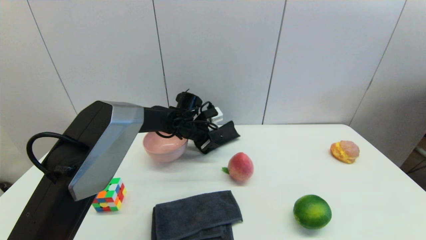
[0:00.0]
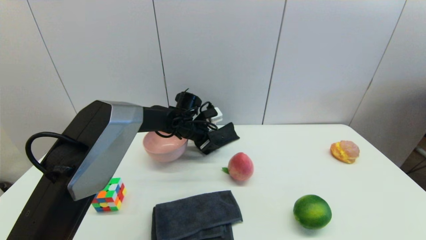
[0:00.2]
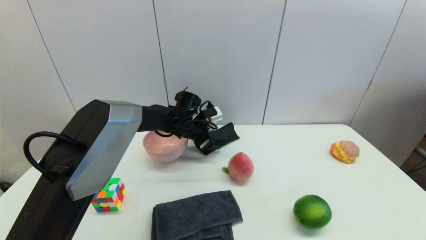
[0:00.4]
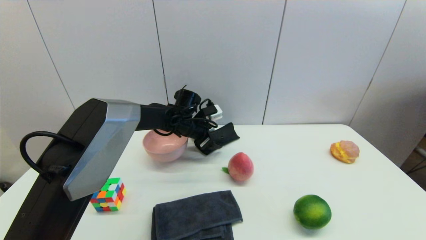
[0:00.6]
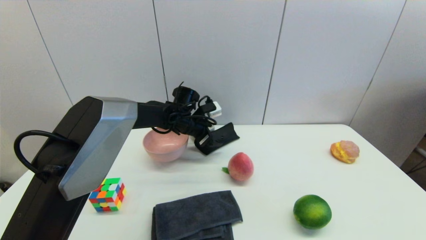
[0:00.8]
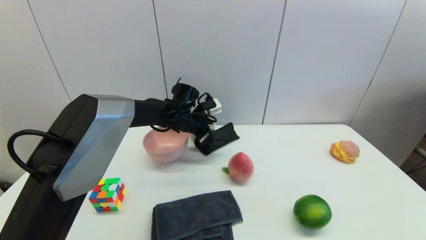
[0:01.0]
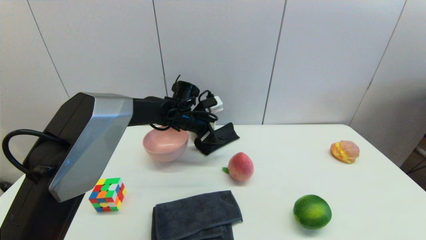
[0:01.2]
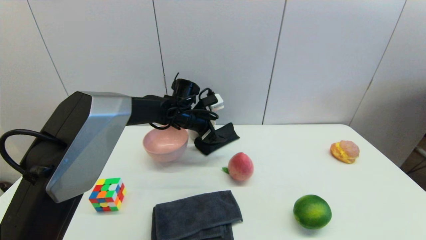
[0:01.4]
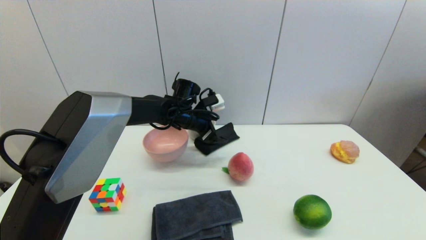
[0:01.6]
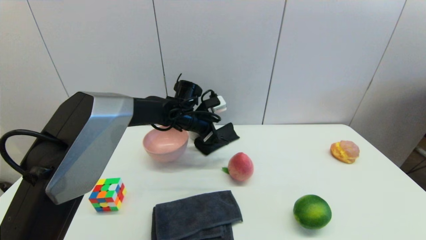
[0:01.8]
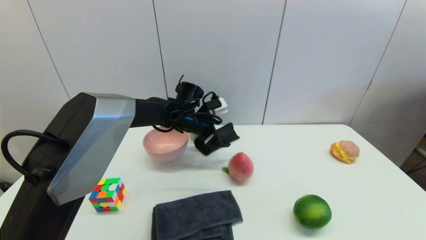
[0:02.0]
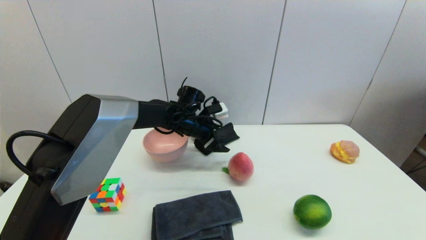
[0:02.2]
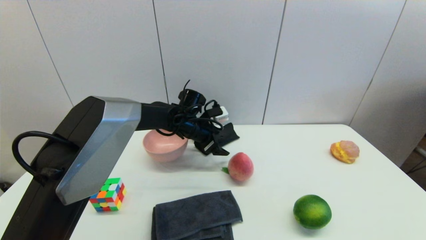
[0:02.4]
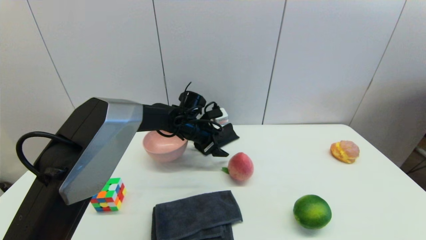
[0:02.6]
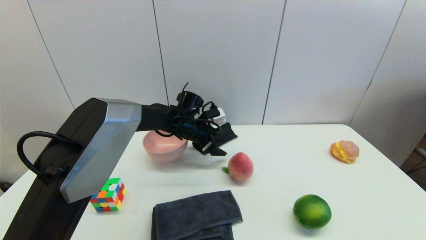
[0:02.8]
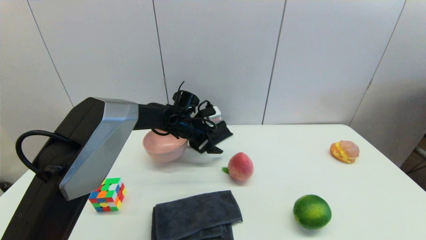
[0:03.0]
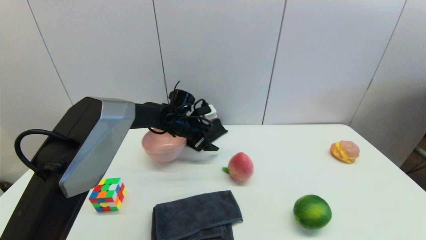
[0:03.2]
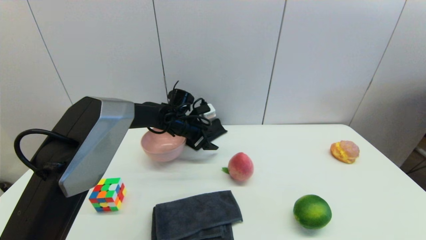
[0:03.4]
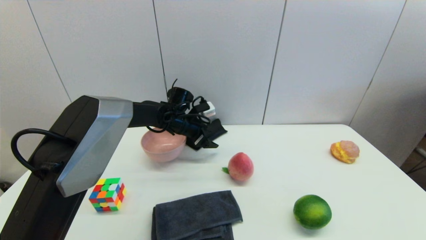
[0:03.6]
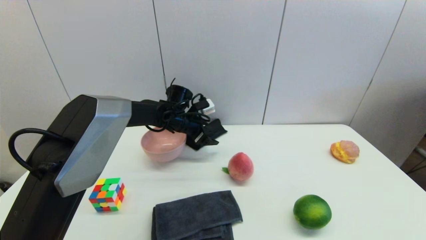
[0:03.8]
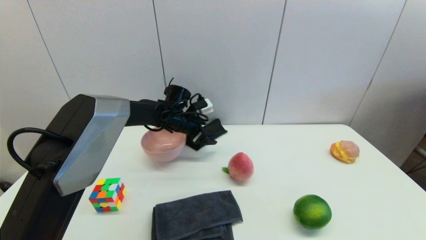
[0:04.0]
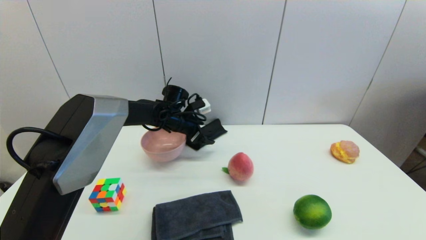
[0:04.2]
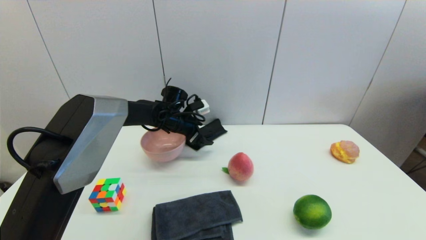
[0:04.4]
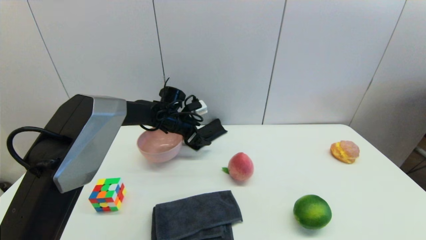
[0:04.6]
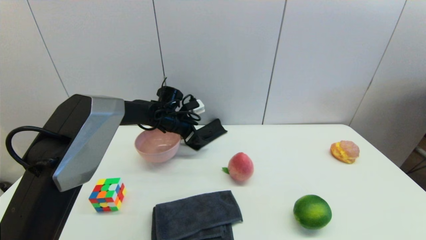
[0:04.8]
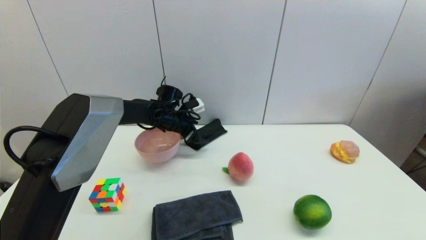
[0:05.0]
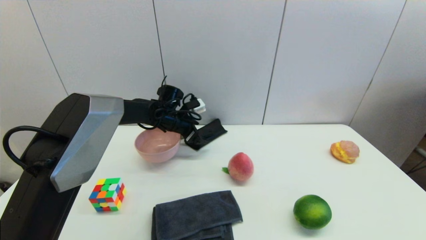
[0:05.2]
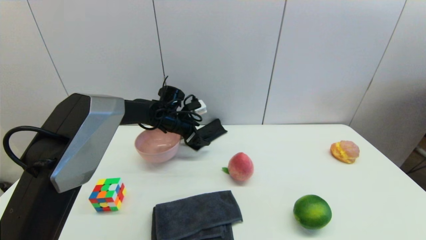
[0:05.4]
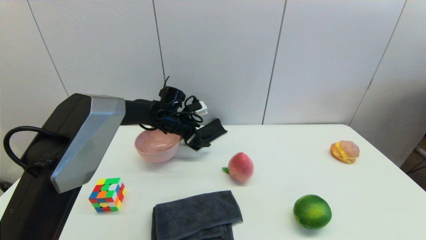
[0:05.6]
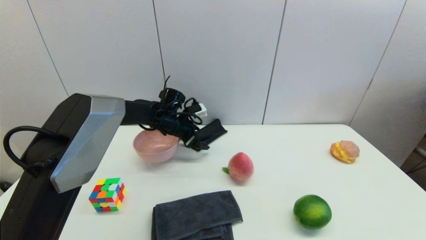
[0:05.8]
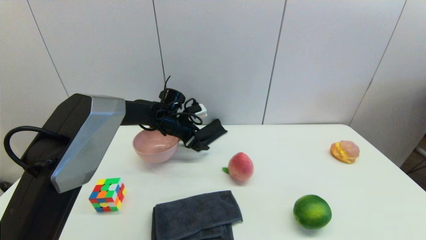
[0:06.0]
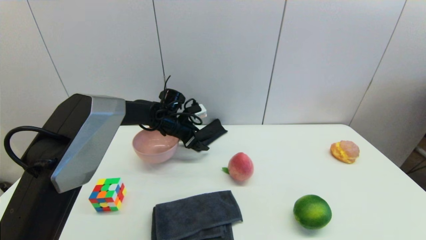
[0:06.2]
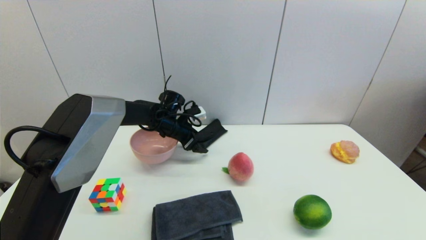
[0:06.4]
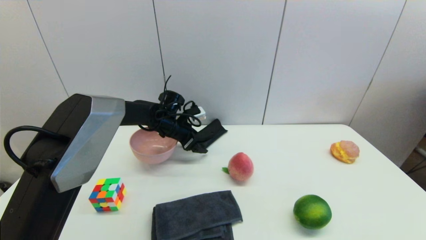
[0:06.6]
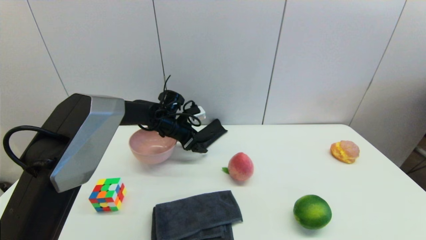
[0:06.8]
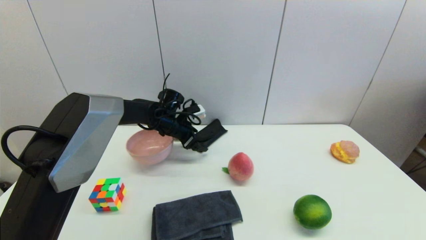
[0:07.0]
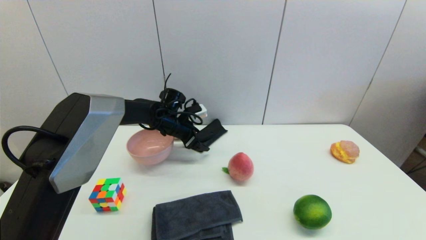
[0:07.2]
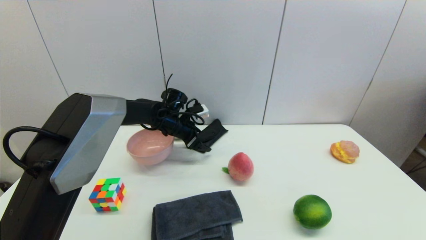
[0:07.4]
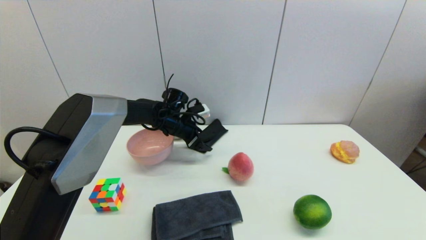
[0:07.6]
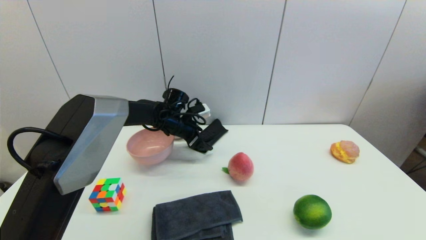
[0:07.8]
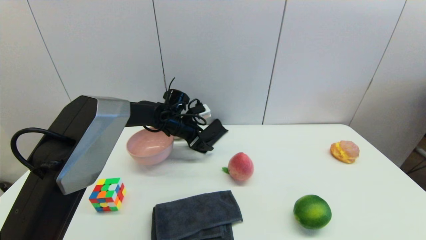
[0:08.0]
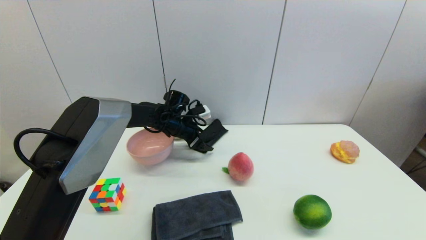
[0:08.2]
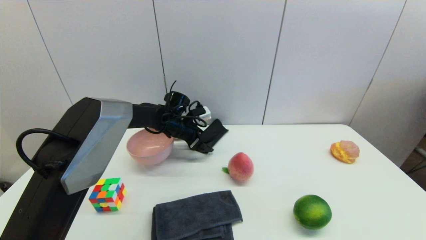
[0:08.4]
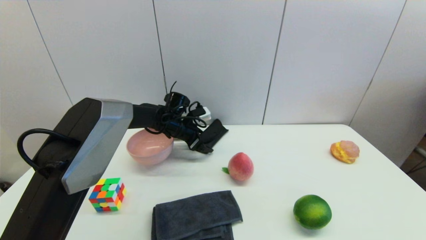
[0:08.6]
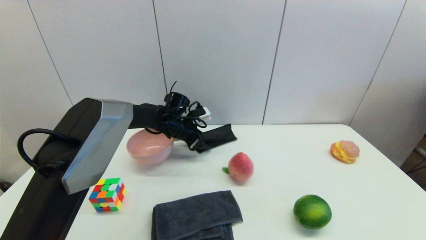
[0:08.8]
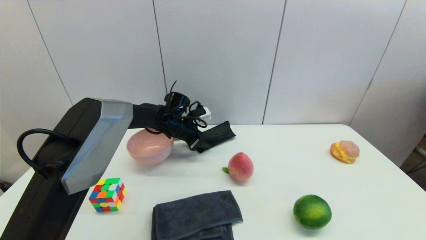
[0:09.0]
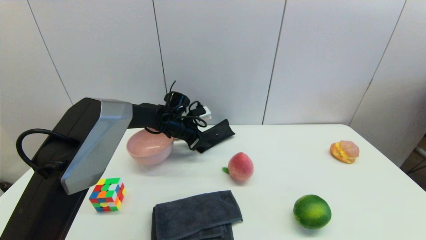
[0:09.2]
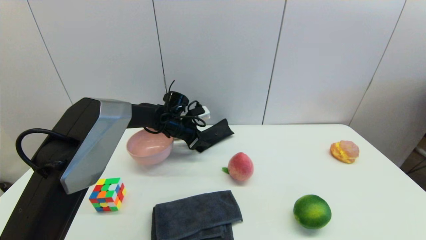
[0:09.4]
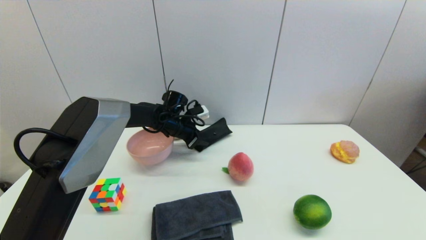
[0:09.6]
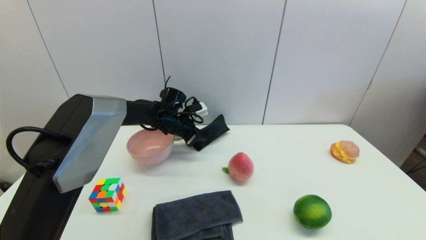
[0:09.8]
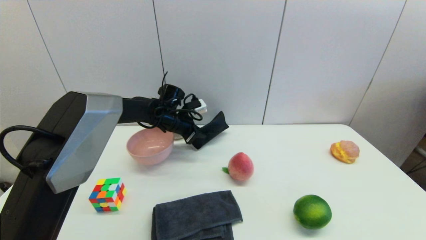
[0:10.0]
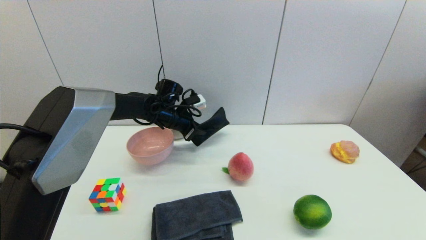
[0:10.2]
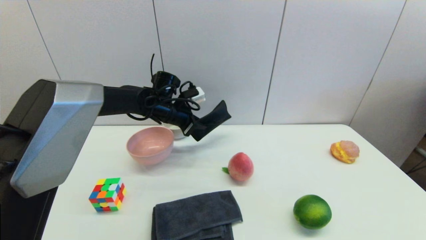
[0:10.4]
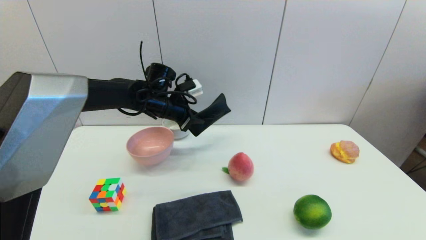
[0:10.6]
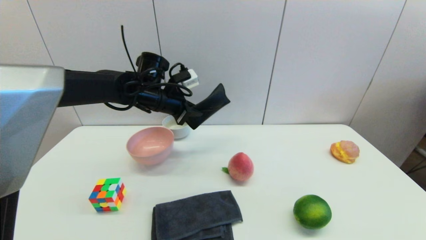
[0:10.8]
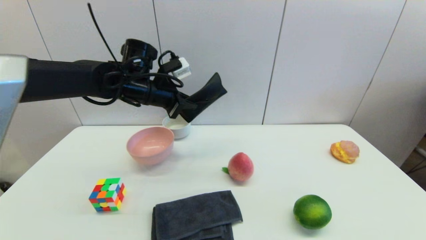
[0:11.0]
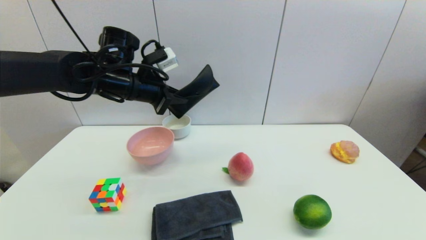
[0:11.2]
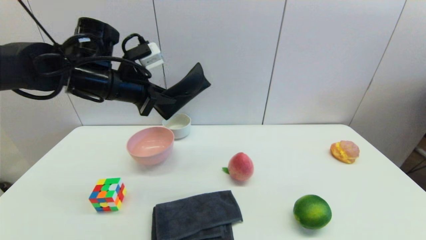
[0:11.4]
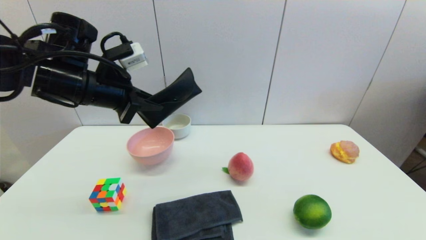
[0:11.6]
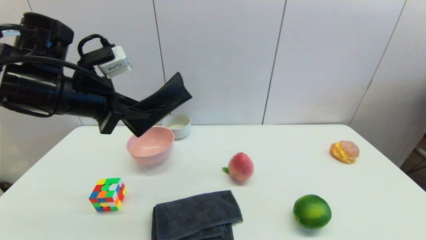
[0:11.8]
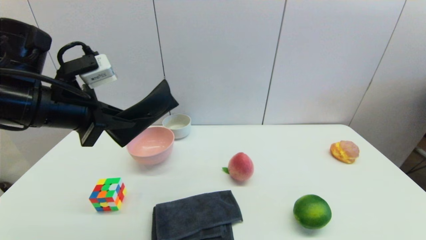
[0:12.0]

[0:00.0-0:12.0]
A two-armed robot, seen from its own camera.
Step, 0.0 to 9.4 s: Grasp the glasses case with left gripper.
0.0 to 1.6 s: The left gripper opens.
1.6 to 4.4 s: There are only small adjustments of the grippers.
4.4 to 6.0 s: Neither gripper changes place.
6.0 to 7.6 s: The two grippers keep their place.
7.6 to 9.0 s: The left gripper closes.
9.0 to 10.4 s: The left gripper shifts about 5 cm upward, and closes its fingers.
10.4 to 12.0 s: The left gripper heads backward, to the left and upward, covering roughly 25 cm.

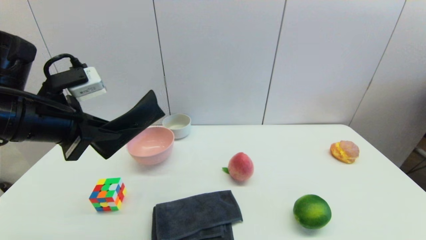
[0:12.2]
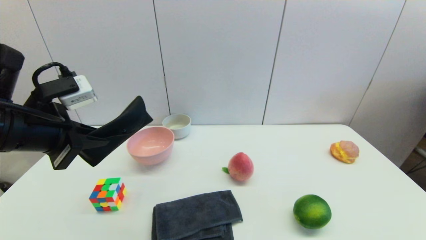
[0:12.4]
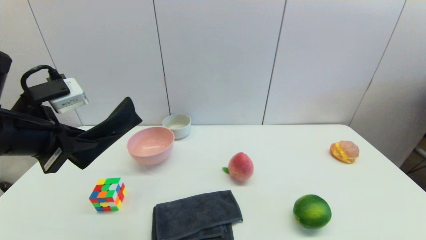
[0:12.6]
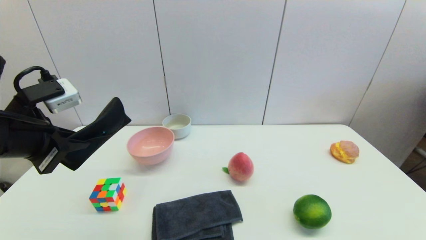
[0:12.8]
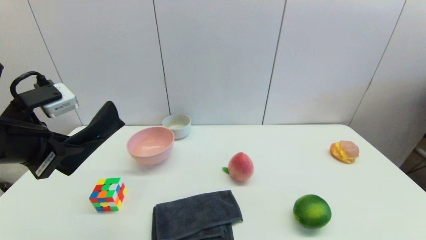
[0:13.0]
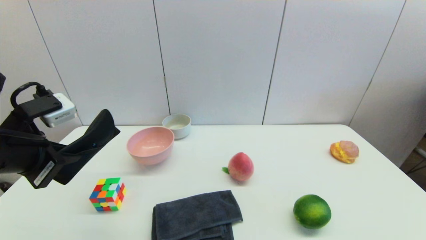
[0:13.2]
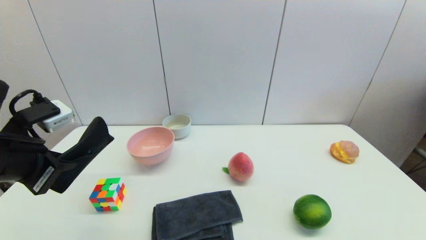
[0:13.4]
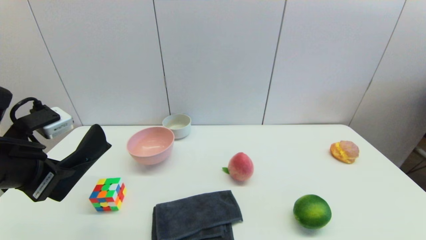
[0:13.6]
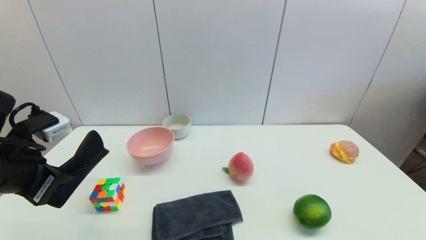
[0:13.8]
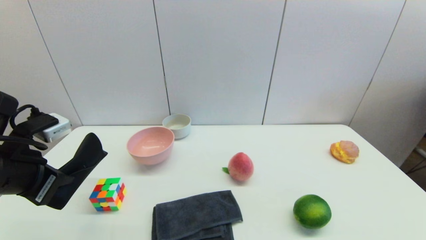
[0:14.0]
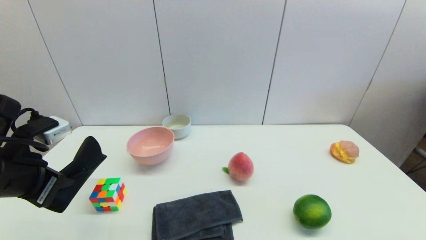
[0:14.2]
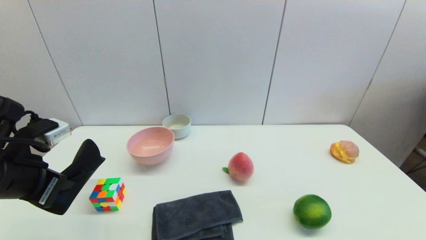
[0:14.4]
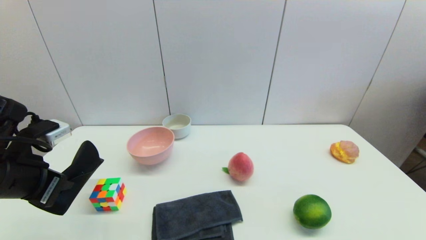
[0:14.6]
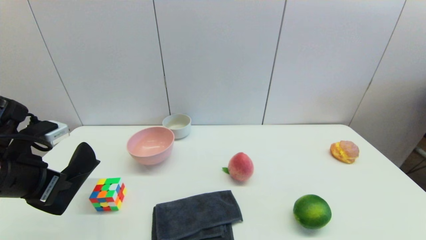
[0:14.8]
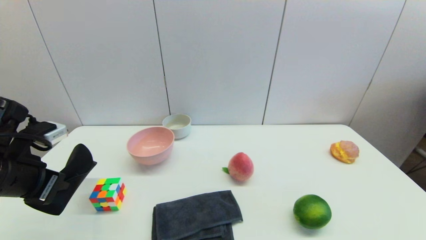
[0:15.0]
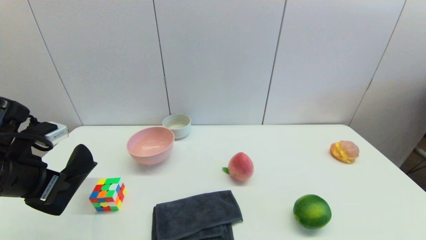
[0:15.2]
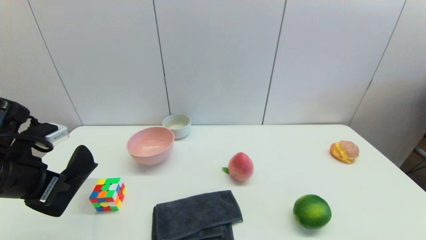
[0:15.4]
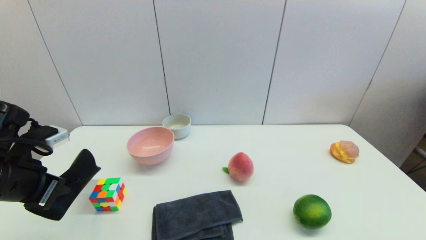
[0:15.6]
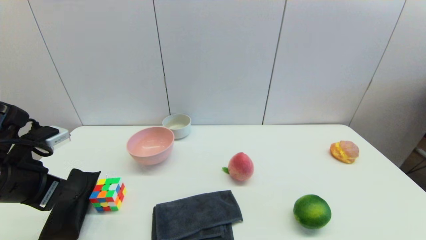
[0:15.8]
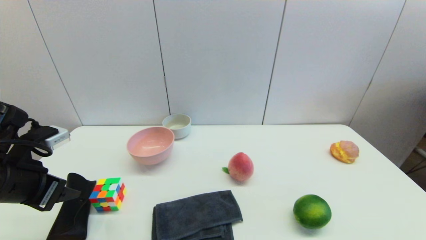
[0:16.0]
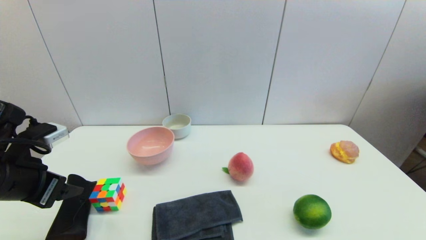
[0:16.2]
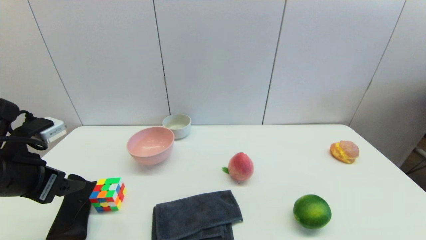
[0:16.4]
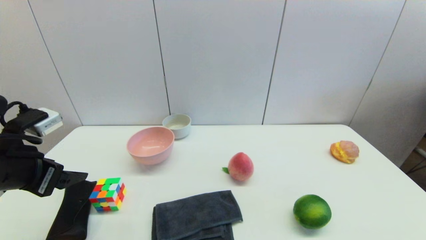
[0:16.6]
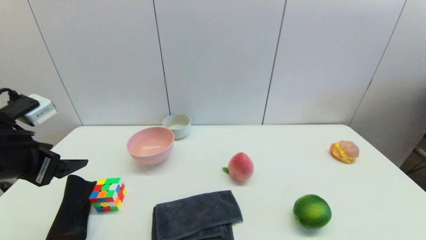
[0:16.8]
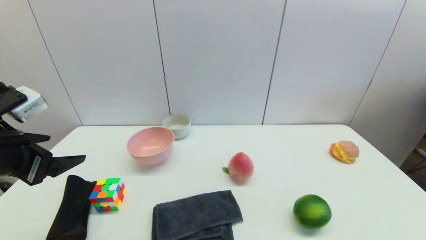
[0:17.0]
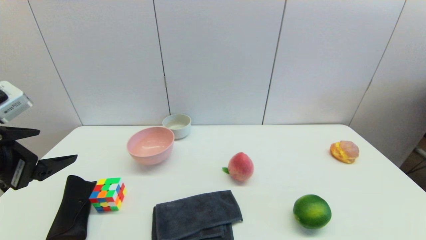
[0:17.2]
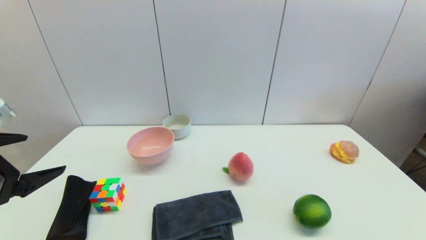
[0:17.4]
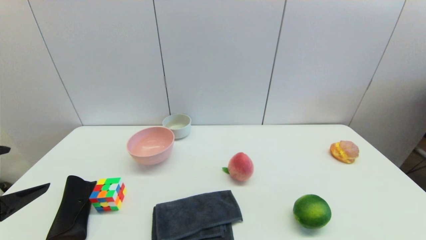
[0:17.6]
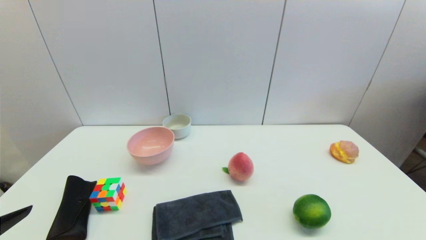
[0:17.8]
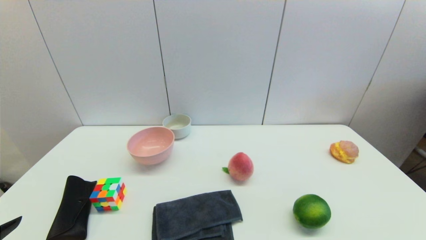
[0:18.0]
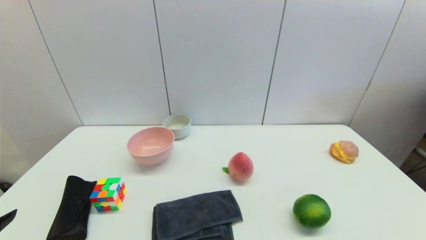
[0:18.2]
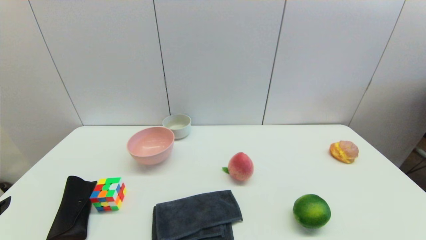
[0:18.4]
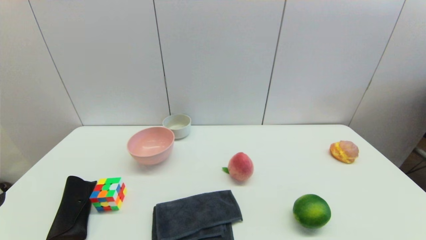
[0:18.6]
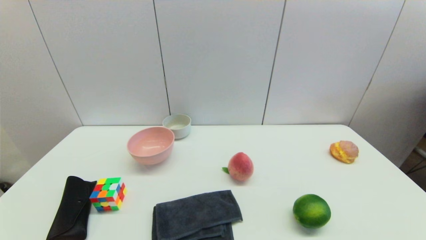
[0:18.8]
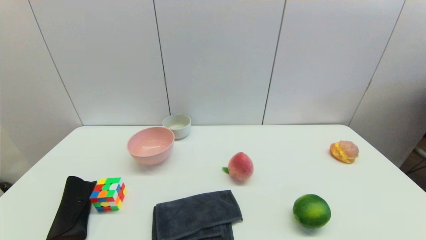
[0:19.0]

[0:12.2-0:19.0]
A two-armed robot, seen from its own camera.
Step, 12.2 to 16.0 s: Place the glasses case on the table with left gripper.
12.2 to 13.6 s: The left gripper shifts by approximately 5 cm.
13.6 to 15.0 s: The grippers move only a little.
15.0 to 16.2 s: The left gripper opens its fingers.
16.2 to 17.6 s: The left gripper travels backward and upward by some 10 cm.
17.6 to 19.0 s: The left gripper moves backward, about 5 cm.
